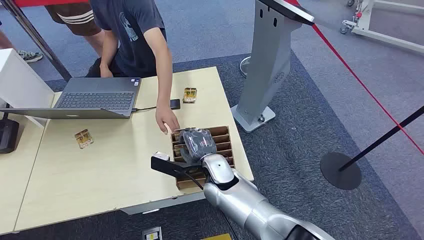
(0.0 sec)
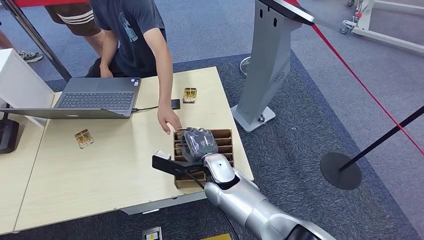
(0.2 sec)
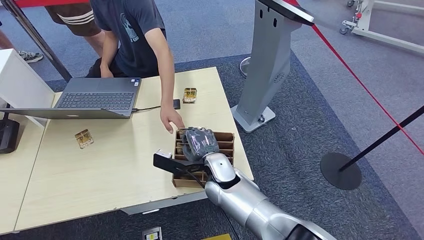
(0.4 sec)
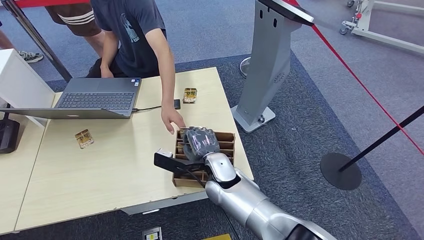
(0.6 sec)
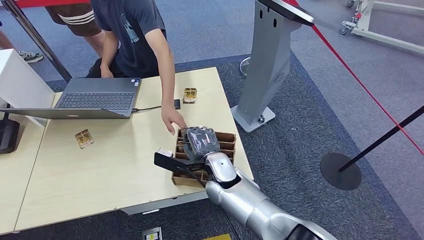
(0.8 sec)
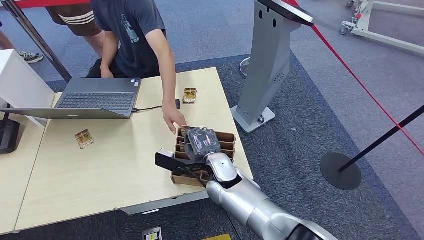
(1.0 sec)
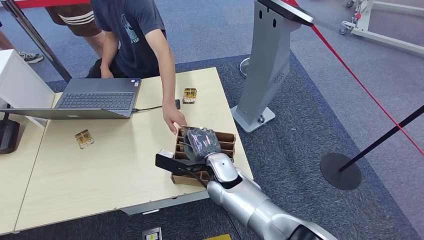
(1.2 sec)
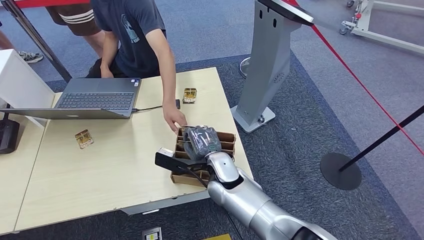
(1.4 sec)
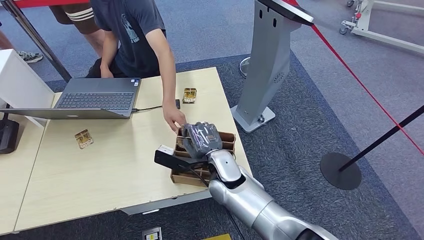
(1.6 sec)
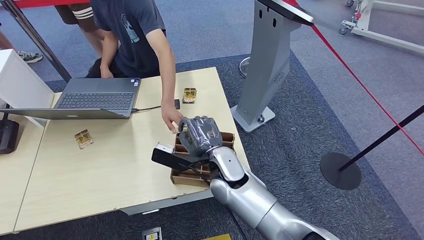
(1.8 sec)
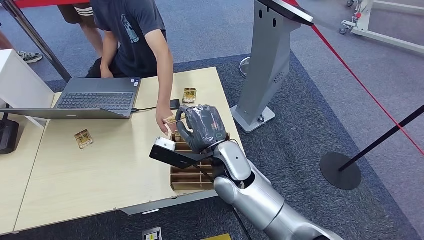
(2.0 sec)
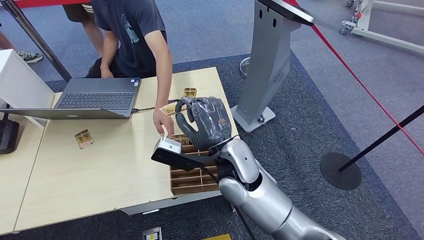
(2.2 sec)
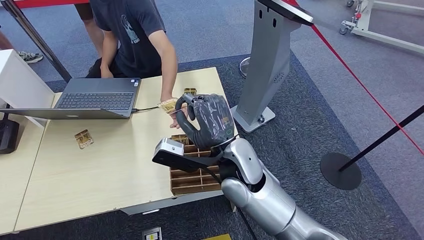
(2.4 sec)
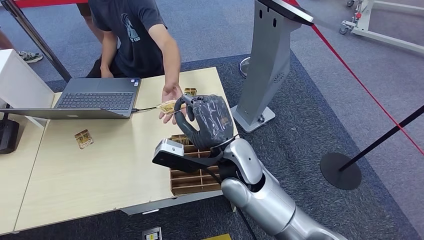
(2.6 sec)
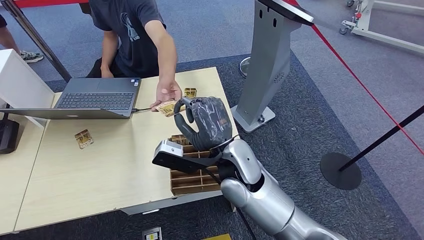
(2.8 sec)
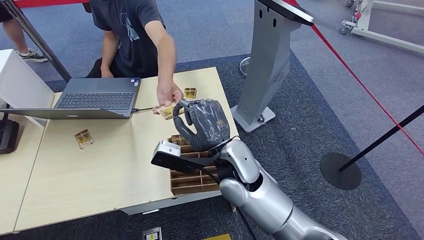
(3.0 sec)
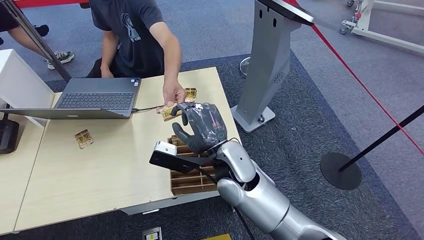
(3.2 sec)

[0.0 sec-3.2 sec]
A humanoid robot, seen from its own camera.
Step, 0.0 sec to 1.8 sec: Pick up the room card from the card holder.
Step, 2.0 sec to 3.2 sec: Hand the room card to the target.
1.6 sec to 3.2 sec: The right hand heads upward, covering some 10 cm.
